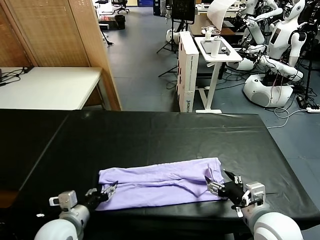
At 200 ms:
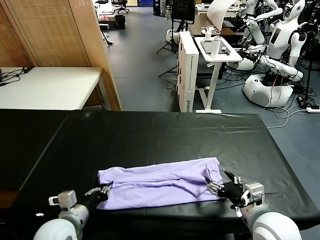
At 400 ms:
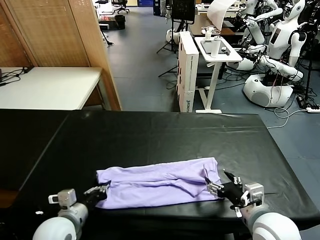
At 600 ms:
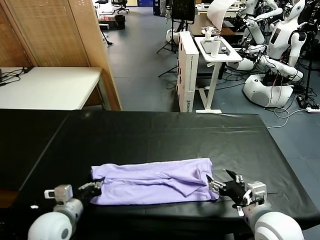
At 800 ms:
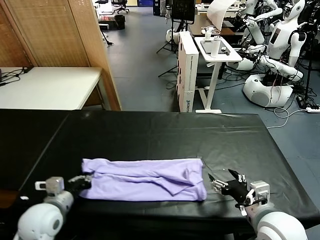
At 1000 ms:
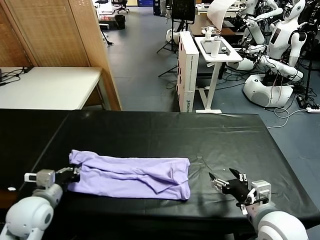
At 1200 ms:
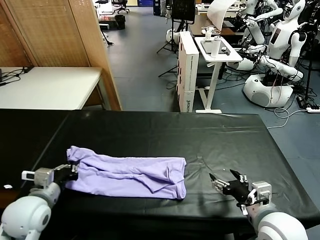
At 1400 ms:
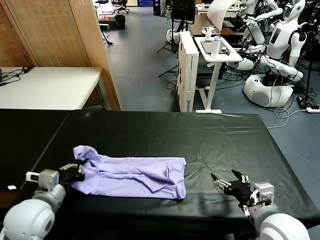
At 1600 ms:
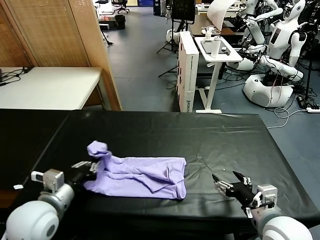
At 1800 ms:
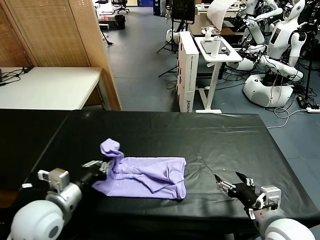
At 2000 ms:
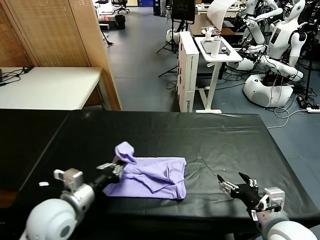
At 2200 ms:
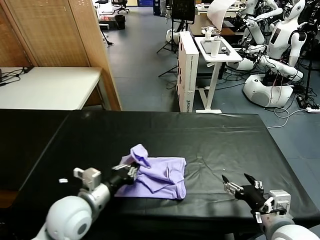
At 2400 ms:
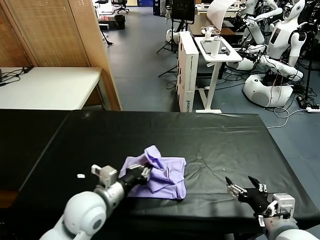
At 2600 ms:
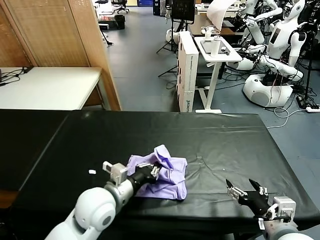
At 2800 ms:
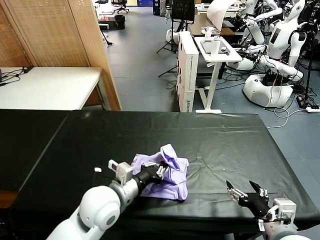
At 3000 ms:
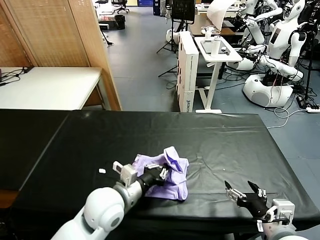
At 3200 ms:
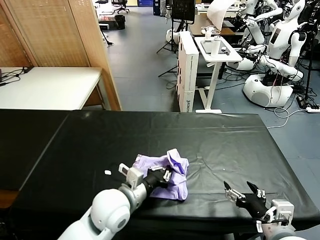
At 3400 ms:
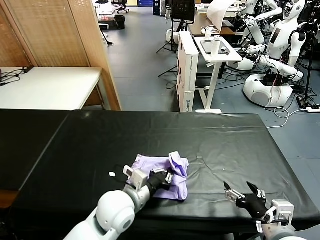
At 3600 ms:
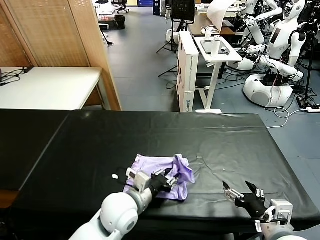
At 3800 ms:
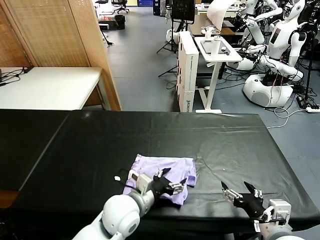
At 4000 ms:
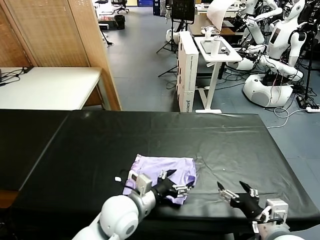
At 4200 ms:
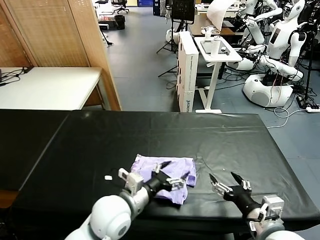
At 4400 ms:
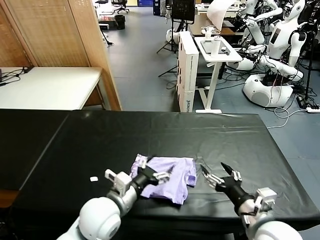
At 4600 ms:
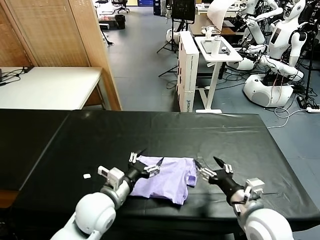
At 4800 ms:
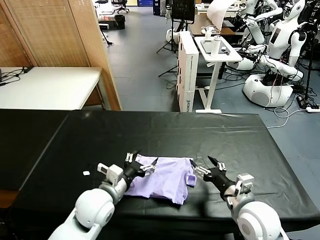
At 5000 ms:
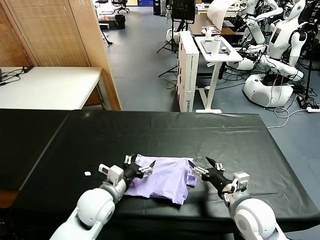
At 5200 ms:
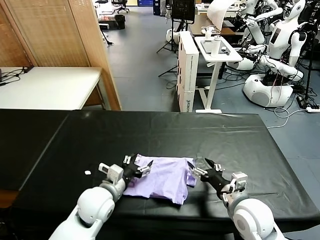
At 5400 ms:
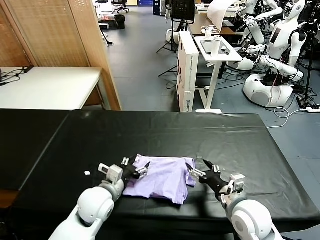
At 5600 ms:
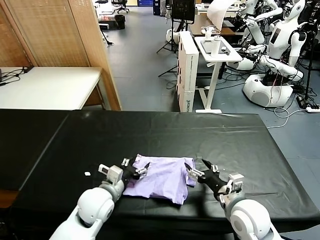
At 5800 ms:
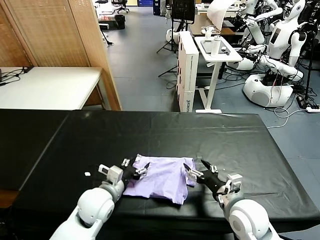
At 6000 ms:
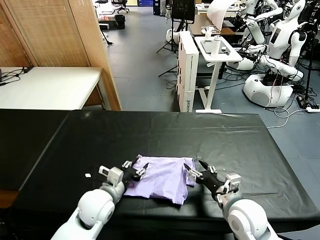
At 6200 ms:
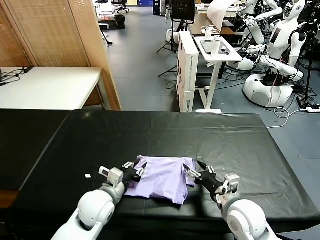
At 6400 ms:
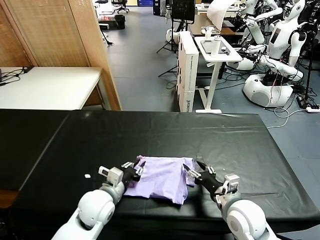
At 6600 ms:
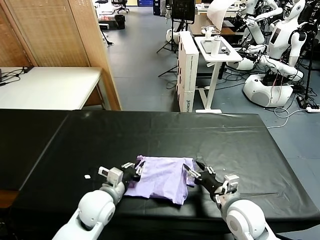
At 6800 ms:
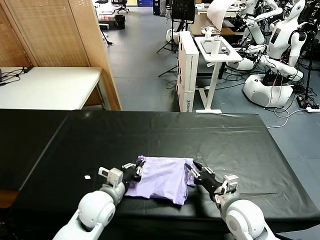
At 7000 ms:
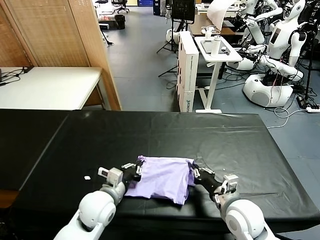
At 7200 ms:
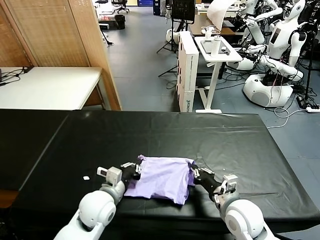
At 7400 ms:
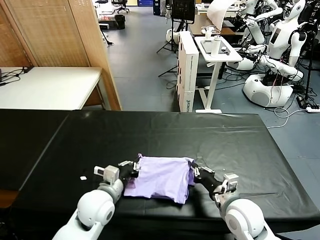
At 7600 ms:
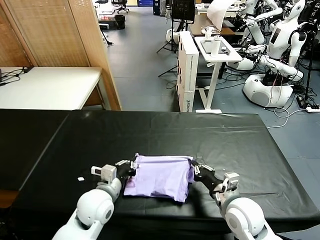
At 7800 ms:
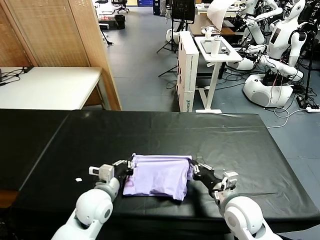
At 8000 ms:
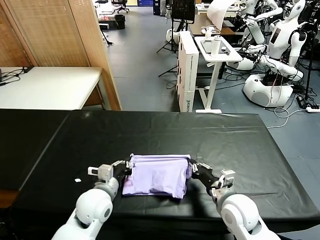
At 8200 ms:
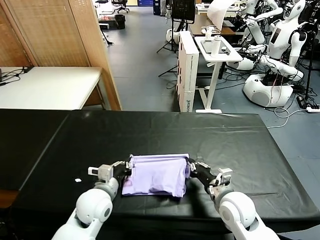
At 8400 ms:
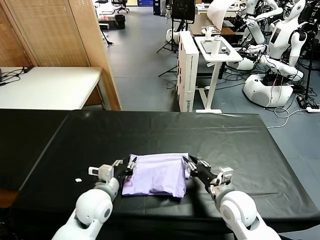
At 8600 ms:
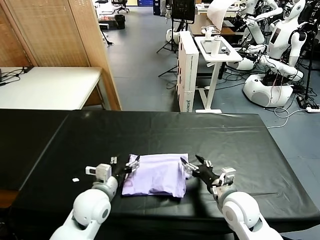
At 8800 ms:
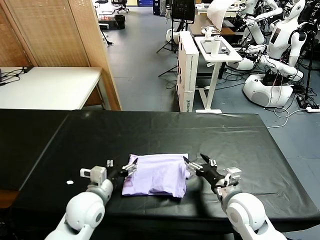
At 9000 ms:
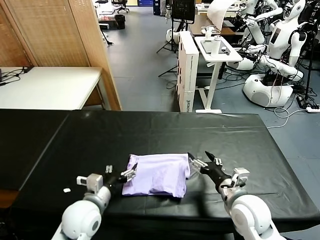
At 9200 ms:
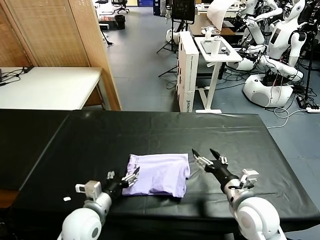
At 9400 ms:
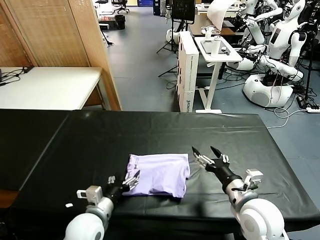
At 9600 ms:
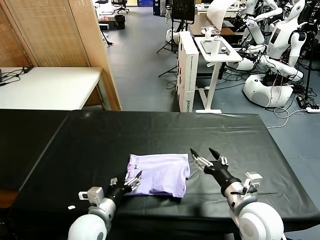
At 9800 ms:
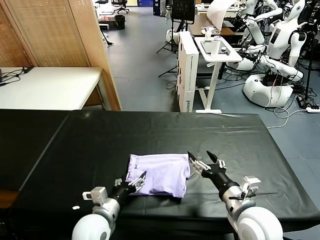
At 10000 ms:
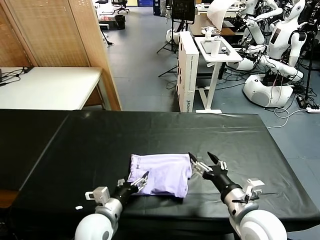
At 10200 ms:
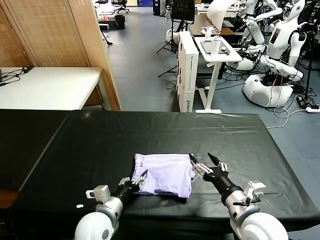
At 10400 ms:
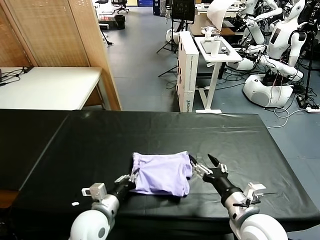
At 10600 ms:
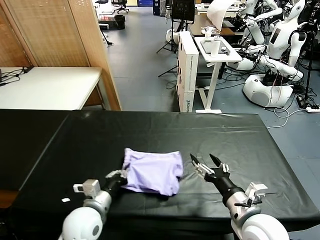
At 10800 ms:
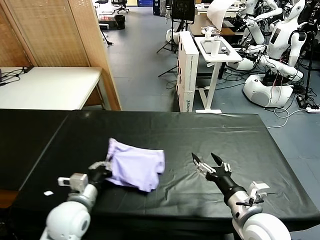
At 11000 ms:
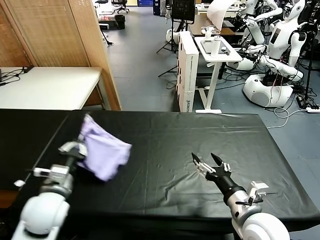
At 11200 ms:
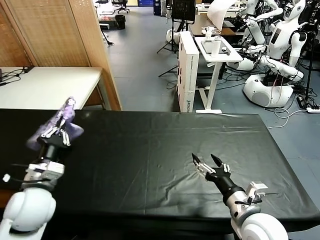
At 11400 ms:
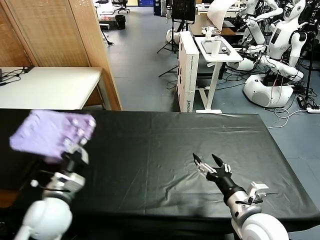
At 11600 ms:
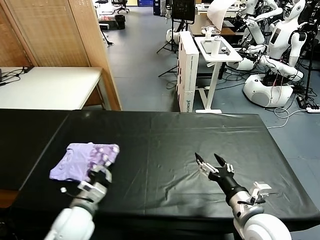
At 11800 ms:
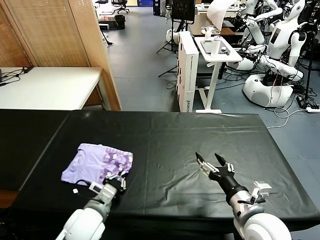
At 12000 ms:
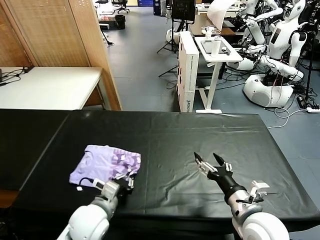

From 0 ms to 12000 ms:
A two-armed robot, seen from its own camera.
Task of the whole recording: fold and organize the clothes.
Step, from 600 ms to 9000 ms: use the left gripper to drag the left edge of the fabric to the left and folds it over the right edge.
From 0 ms to 1600 ms: The left gripper shifts roughly 10 cm upward, and closes.
From 1600 ms to 3000 ms: The left gripper shifts about 15 cm to the right and downward.
From 3000 ms to 4400 ms: The left gripper heads to the left, covering roughly 5 cm, and opens up.
From 4400 ms to 6000 ms: The right gripper shifts some 10 cm forward and downward.
From 6000 ms to 7600 ms: The left gripper closes up. Meanwhile the right gripper closes up.
From 7600 ms to 9000 ms: The left gripper moves backward, some 5 cm, and opens up, while the right gripper opens up.
From 9000 ms to 10400 ms: The left gripper closes up. The right gripper heads backward, covering some 5 cm.
From 10400 ms to 12000 ms: The left gripper goes to the left and returns, roughly 10 cm each way.

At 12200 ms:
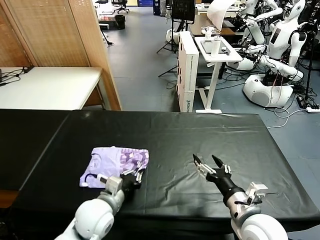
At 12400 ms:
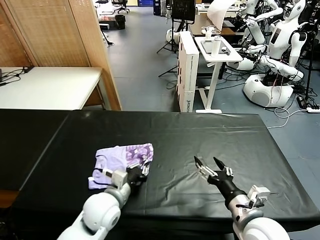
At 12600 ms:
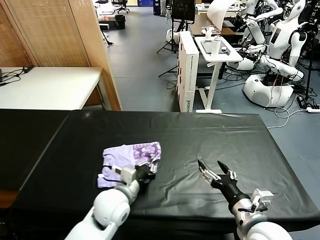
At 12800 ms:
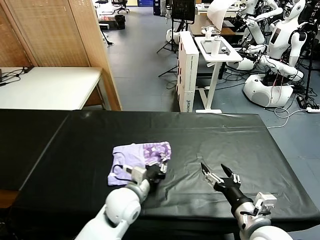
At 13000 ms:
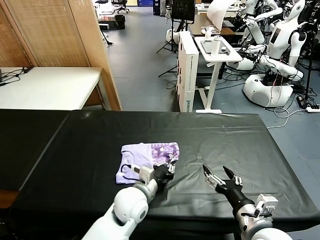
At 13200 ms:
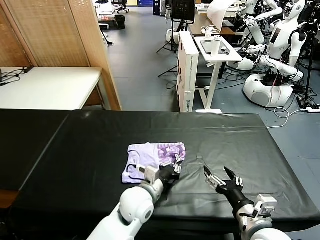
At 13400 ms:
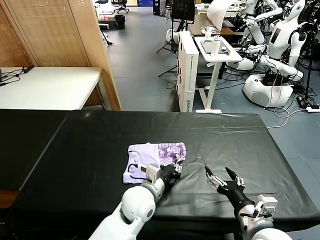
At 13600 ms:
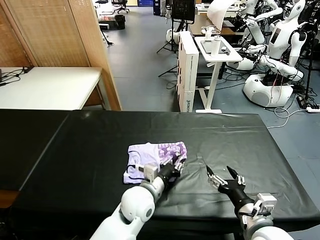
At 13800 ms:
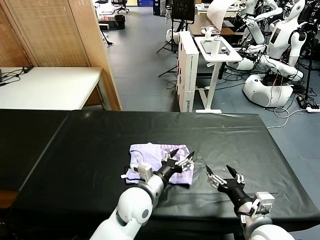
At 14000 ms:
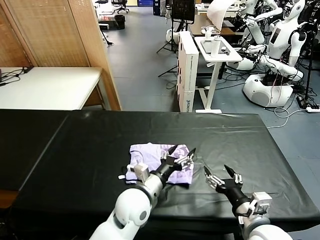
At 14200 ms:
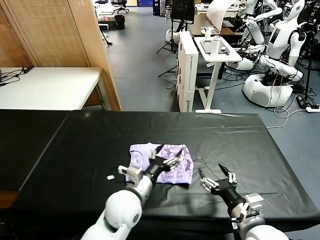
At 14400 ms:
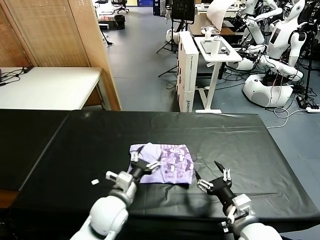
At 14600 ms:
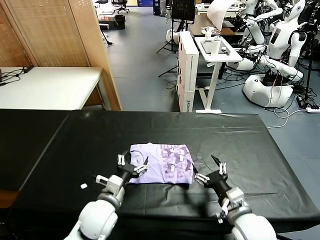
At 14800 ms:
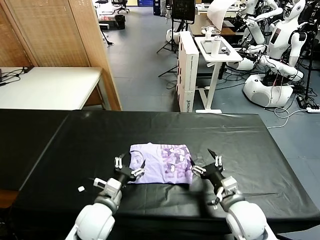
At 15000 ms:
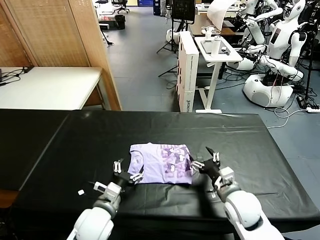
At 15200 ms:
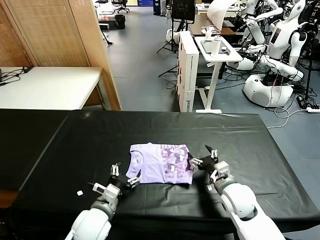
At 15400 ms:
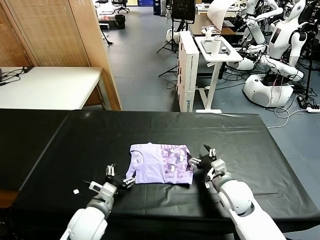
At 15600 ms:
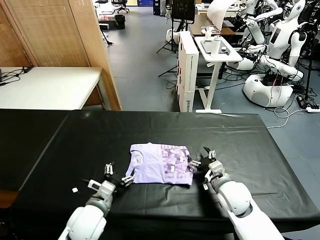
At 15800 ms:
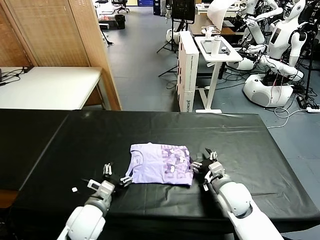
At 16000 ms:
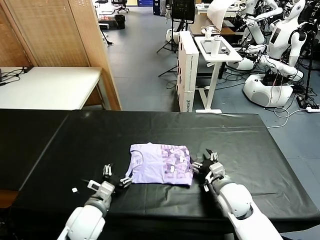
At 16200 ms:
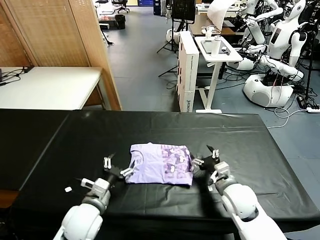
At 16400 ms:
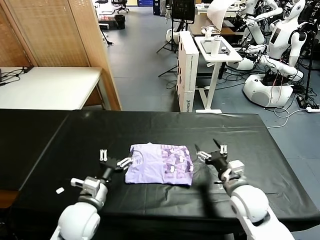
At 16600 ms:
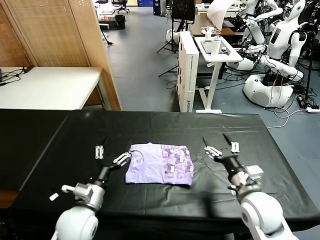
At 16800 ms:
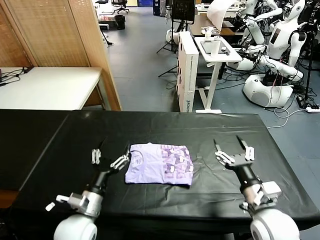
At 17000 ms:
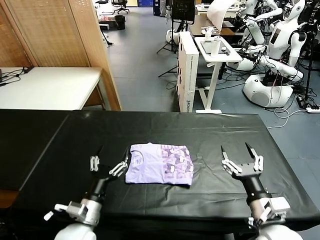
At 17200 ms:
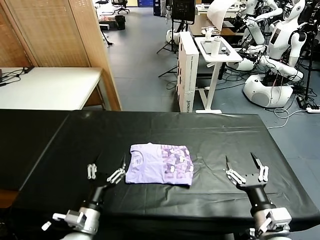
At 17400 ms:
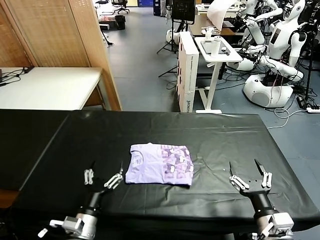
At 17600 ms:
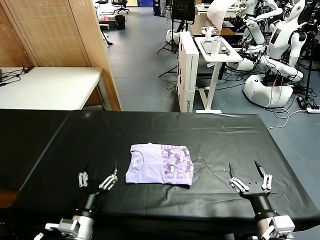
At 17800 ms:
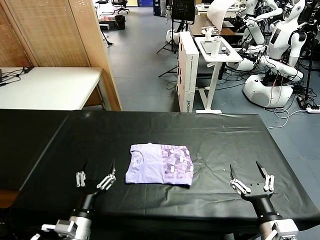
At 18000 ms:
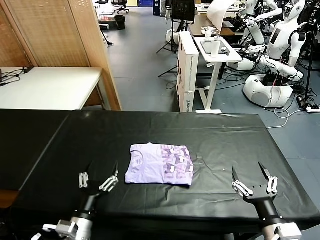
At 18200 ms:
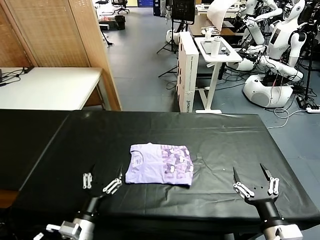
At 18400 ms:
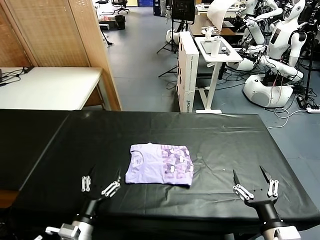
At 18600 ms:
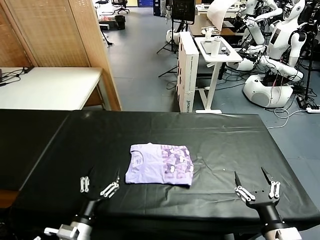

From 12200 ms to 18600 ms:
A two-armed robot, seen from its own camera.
Task of the whole recording: fold and organize the clothes.
Step, from 12200 ms to 16400 ms: Flip the folded clothes over with left gripper.
From 12200 ms to 13800 ms: The left gripper shifts some 10 cm to the right, and opens its fingers.
From 13800 ms to 15400 ms: The right gripper shifts about 15 cm forward and downward. The left gripper is displaced to the left by approximately 15 cm.
From 15400 ms to 17000 ms: The right gripper is displaced backward and upward by approximately 15 cm.
From 17000 ms to 18600 ms: The two grippers go roughly 5 cm backward.
